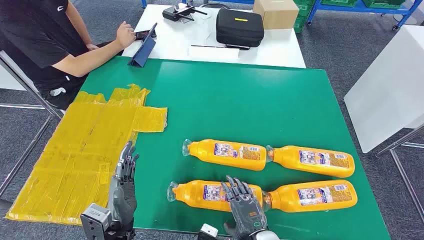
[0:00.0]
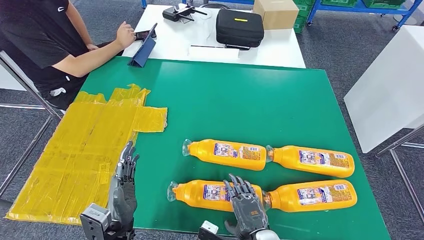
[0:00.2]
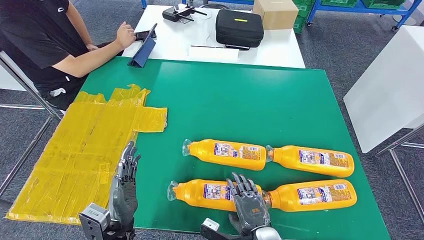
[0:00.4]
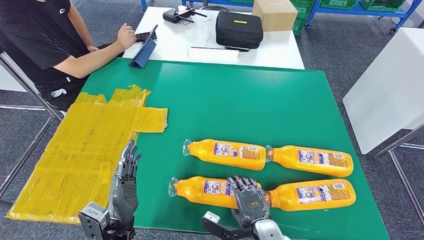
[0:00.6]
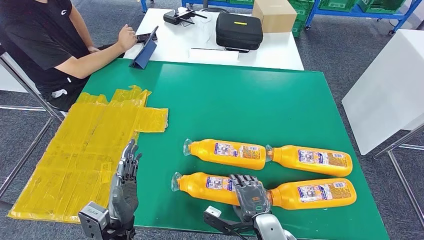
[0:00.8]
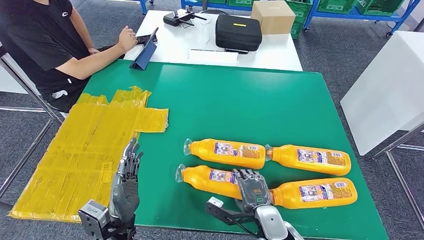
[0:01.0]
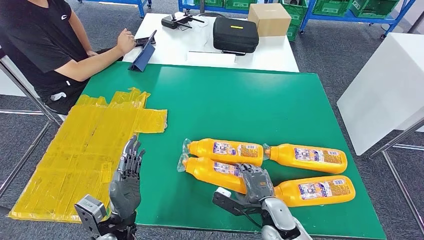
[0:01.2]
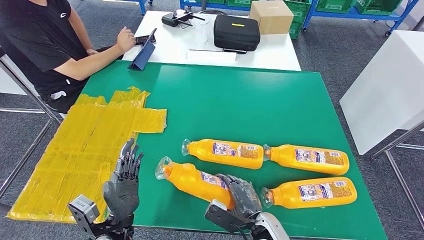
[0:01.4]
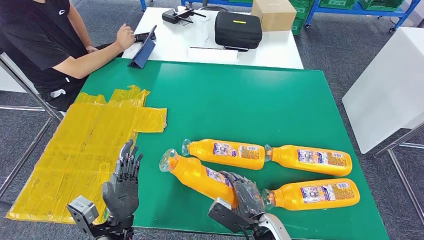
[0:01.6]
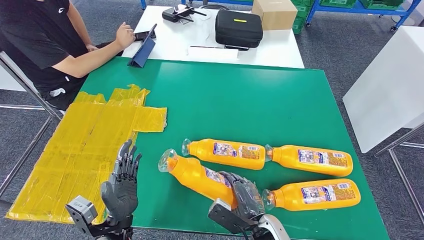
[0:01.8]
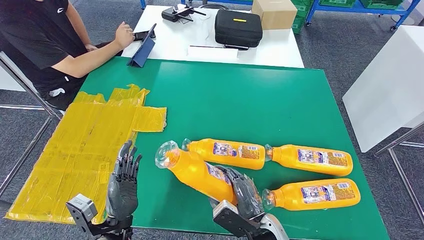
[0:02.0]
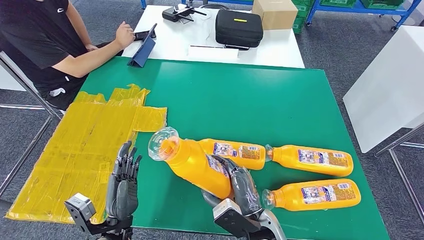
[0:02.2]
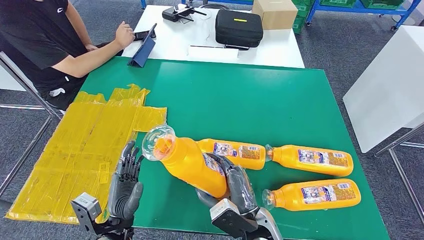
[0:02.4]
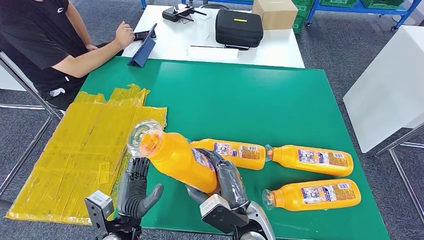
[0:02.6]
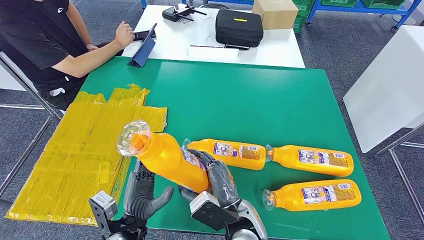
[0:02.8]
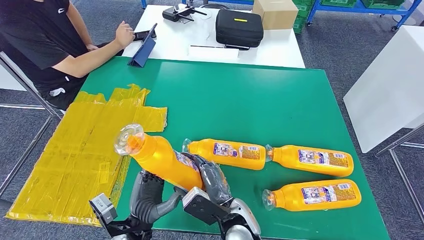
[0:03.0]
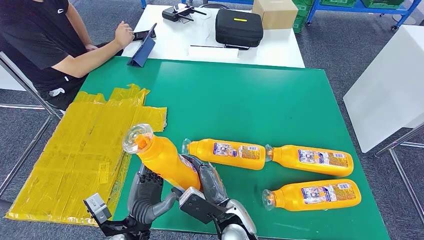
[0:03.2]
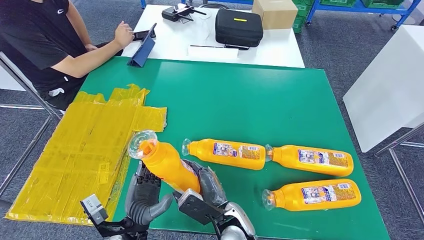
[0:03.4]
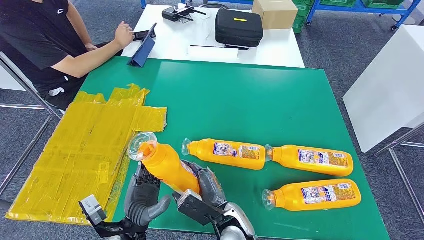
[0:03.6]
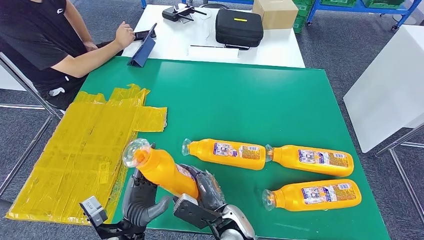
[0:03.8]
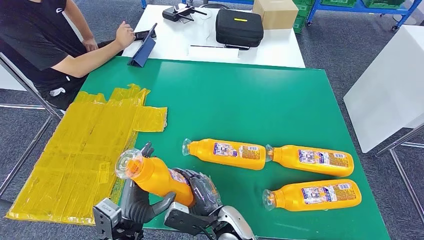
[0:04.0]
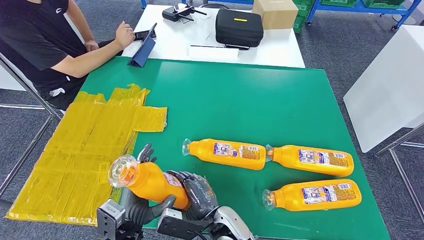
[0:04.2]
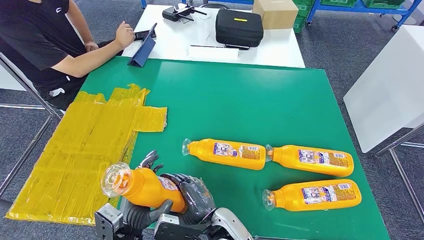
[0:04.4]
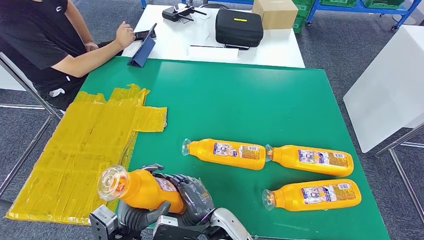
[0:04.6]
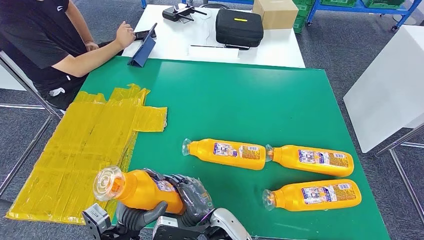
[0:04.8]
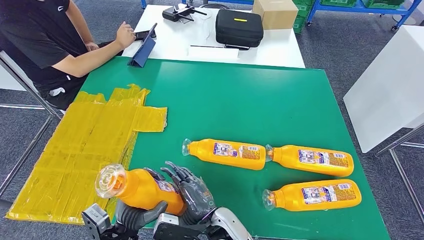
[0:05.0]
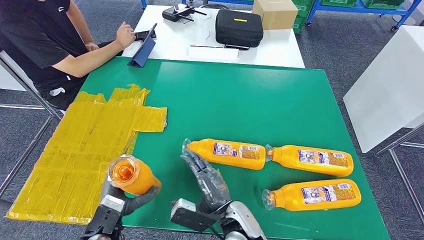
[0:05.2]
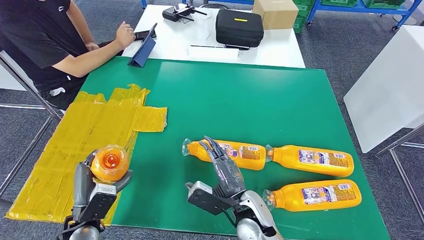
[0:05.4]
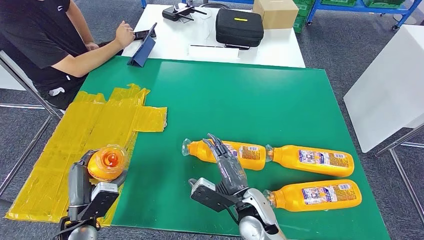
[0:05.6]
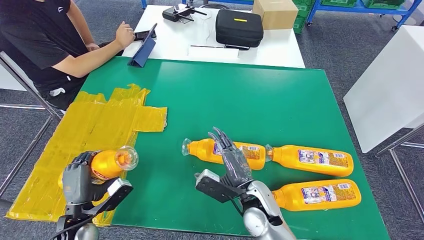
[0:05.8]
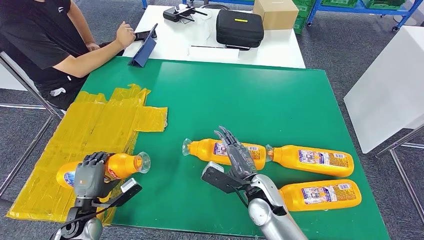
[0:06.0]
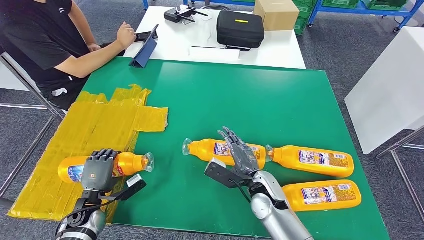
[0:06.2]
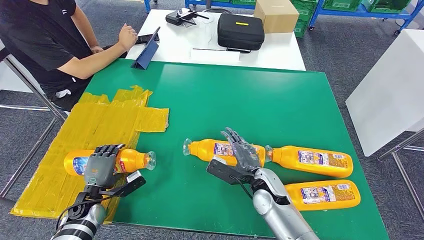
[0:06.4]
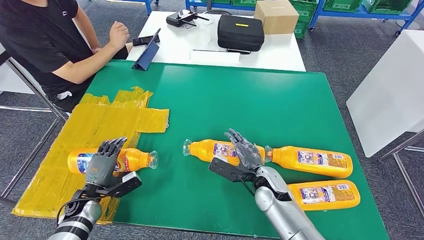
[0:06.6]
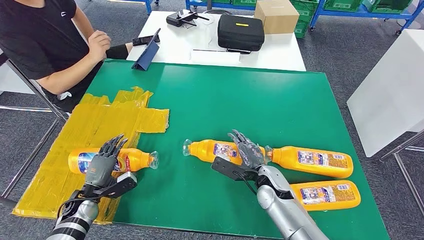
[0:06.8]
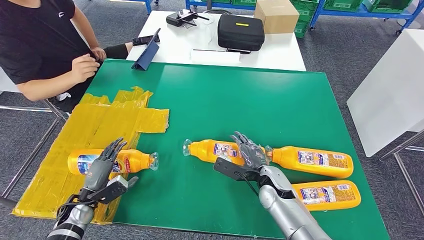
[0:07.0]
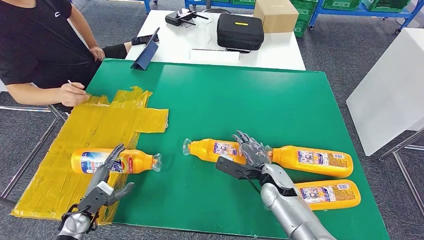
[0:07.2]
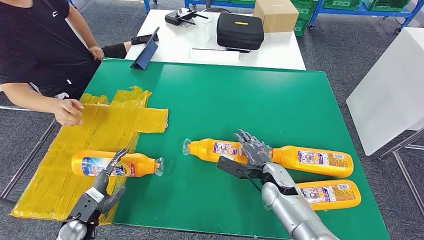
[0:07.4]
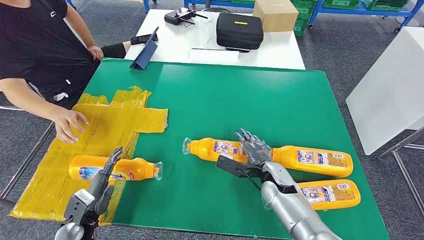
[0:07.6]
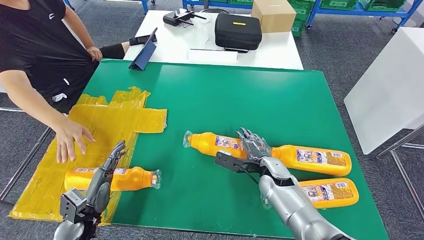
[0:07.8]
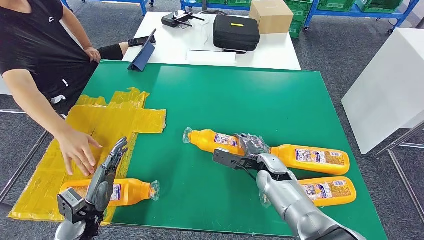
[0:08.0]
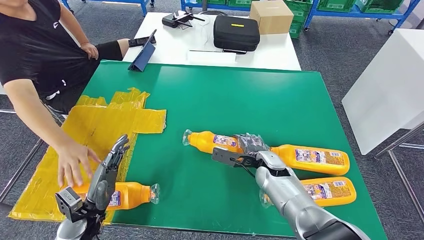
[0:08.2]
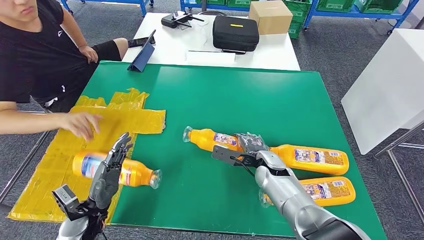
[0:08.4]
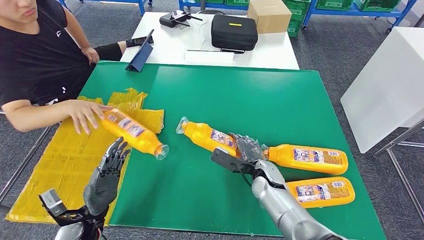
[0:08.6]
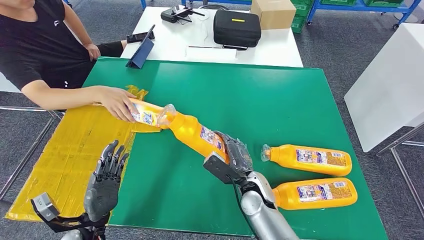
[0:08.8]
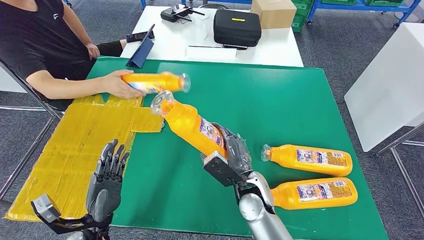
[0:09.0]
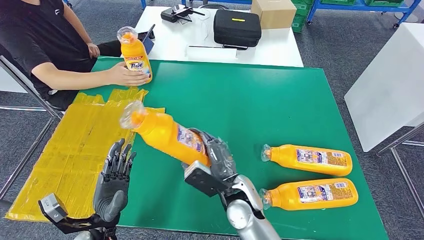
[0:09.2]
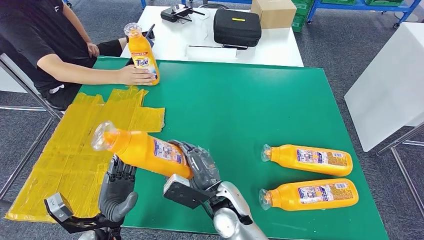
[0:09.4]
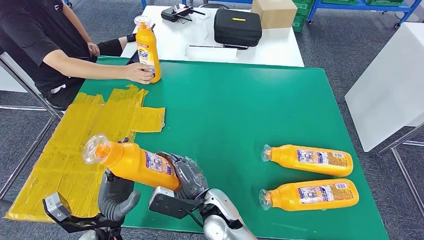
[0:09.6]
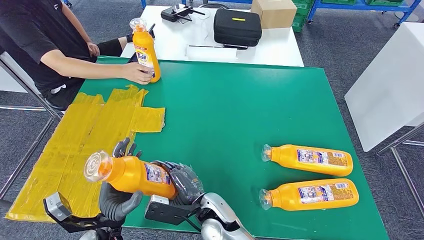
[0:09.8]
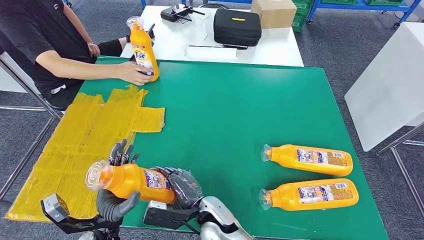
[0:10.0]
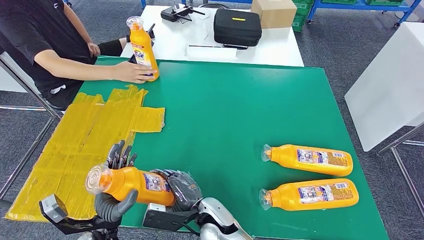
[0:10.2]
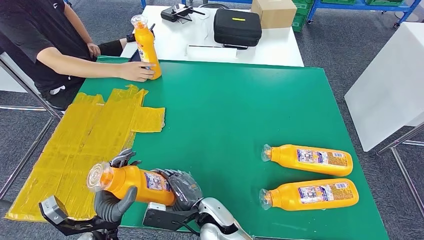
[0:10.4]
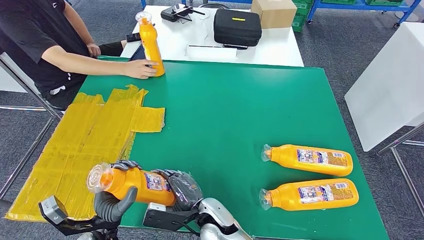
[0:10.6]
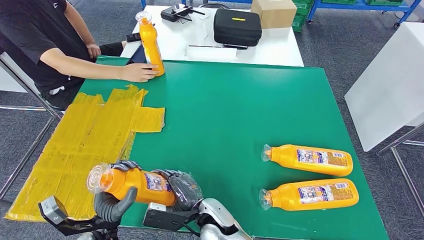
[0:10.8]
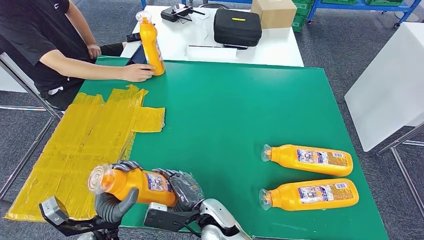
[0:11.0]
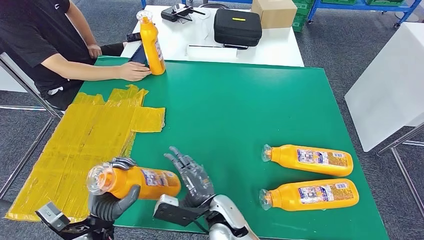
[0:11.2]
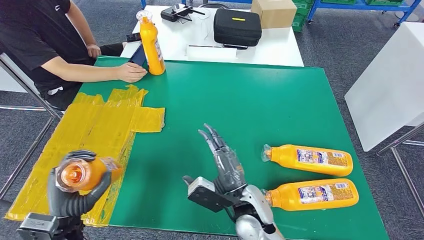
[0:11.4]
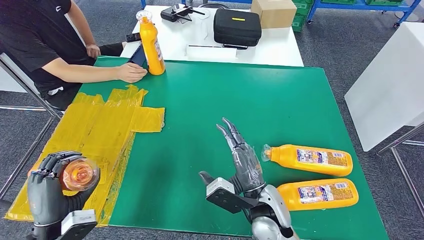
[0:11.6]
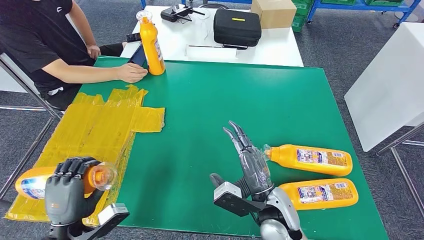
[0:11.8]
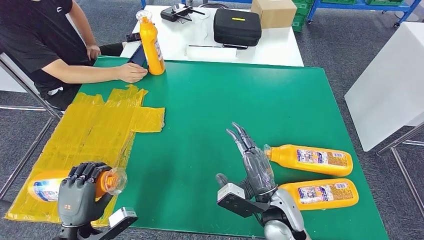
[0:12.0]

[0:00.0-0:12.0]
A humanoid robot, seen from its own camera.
Step, 0:00.0 to 0:03.6: Take the bottle from the table.
Step, 0:03.8 to 0:07.8: Flip the bottle to face forward.
Step, 0:08.0 to 0:11.4: Pick up the bottle from the table.
0:01.6 to 0:03.0: The right hand heads to the left and upward, covering roughly 10 cm.
0:04.4 to 0:06.0: The right hand goes some 15 cm to the right and forward. Meanwhile the left hand shifts some 15 cm to the left and forward.
0:10.4 to 0:12.0: The right hand moves to the right, about 15 cm, while the left hand heads to the left, covering some 5 cm.

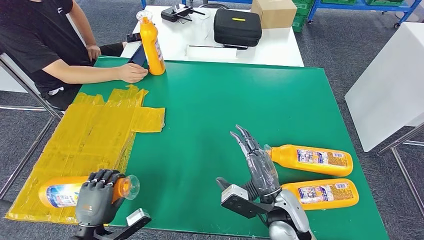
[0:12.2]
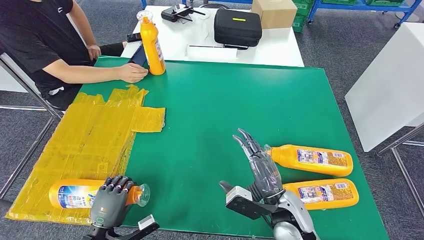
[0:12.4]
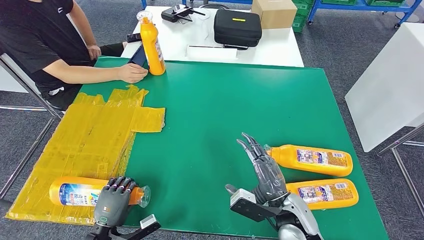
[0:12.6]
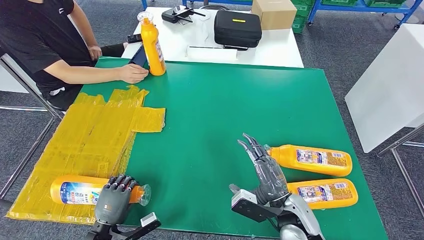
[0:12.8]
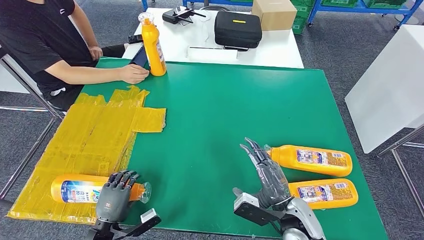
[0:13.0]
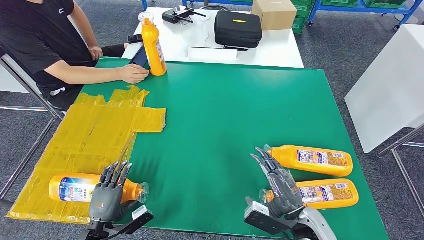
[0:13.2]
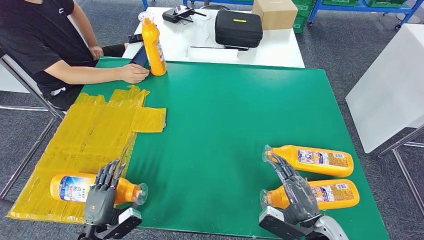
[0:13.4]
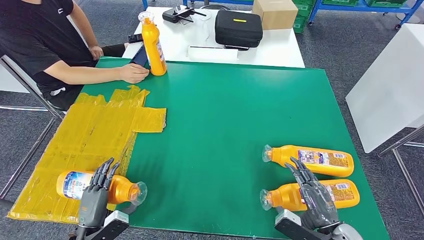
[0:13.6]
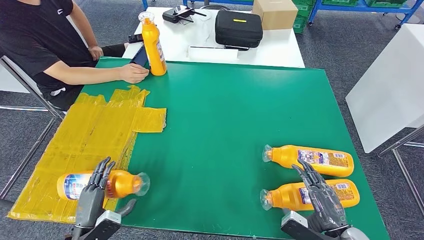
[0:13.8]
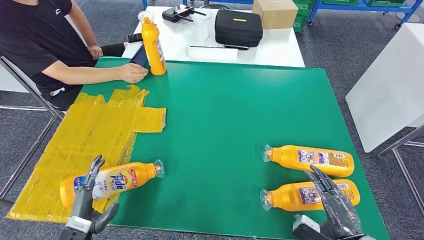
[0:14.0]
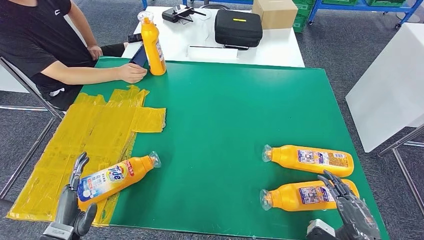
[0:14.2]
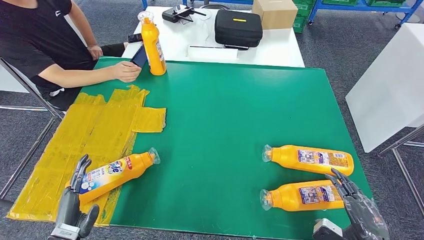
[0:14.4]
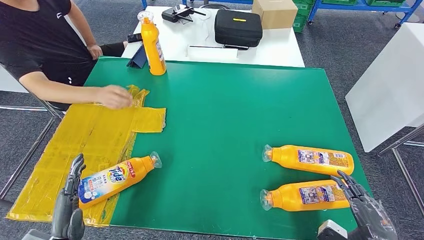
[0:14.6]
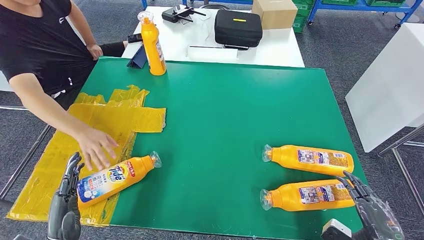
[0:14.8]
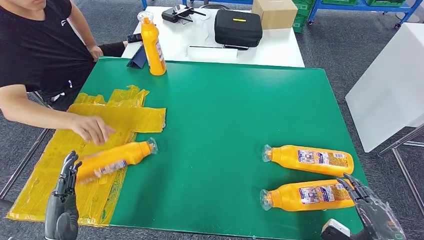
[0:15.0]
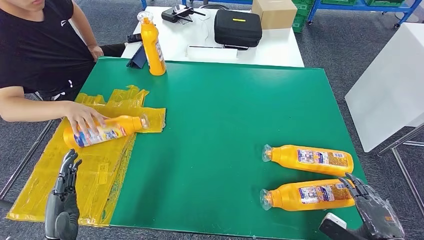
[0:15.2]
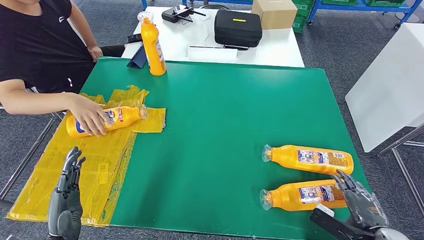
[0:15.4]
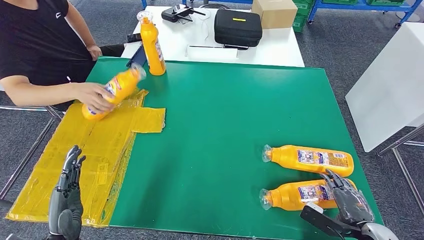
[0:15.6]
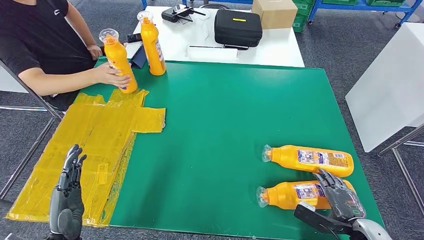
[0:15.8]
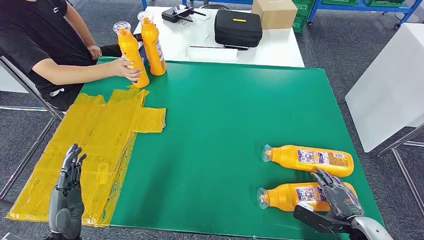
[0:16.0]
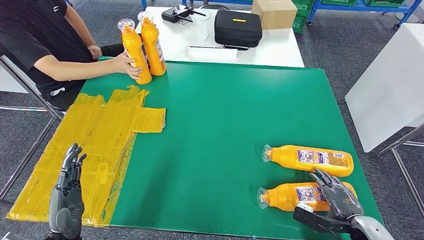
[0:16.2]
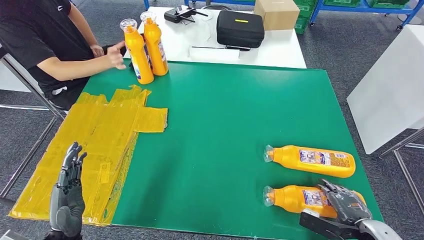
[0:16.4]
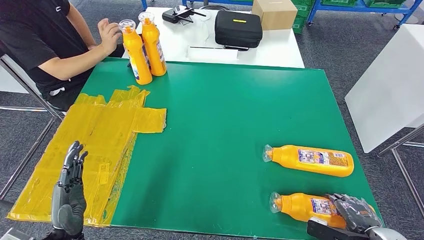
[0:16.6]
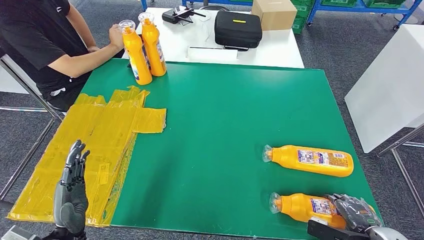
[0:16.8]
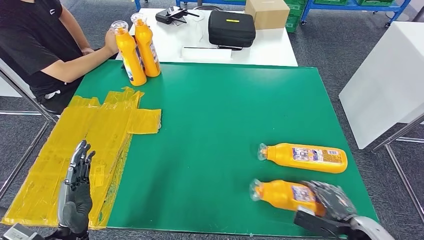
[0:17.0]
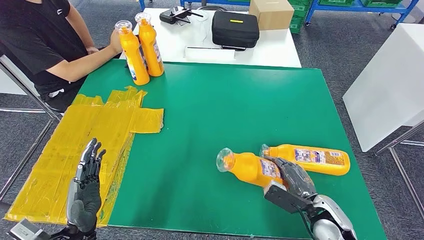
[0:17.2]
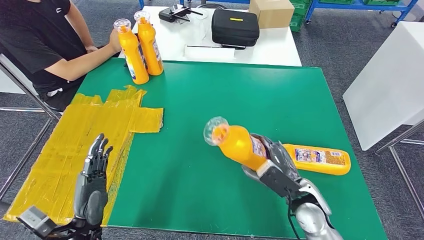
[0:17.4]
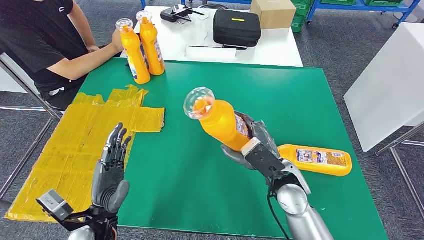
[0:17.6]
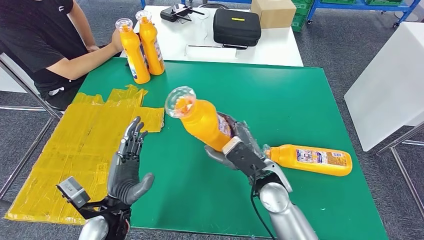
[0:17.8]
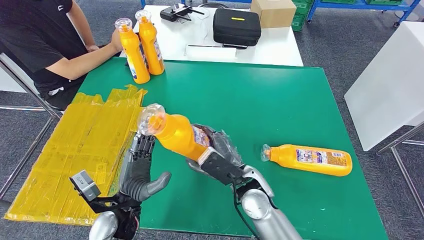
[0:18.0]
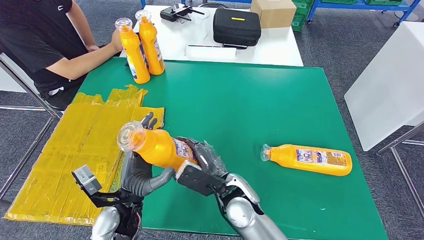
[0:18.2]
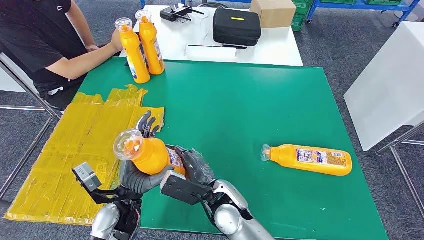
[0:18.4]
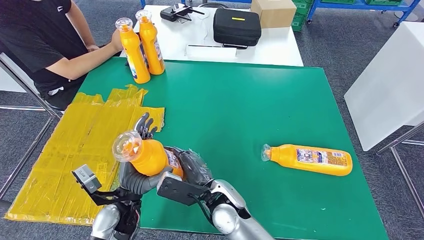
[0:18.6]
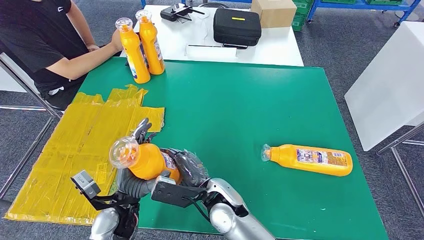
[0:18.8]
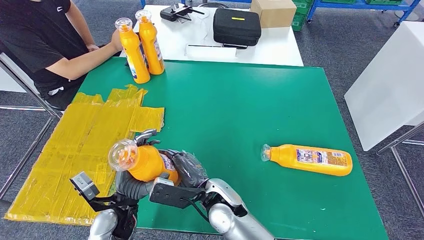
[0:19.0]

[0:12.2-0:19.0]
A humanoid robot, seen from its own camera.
Step, 0:12.2 to 0:14.6: Flip the bottle to face forward.
0:12.2 to 0:13.6: The right hand goes about 15 cm to the right and backward.
0:13.6 to 0:15.0: The right hand shifts approximately 10 cm to the right; the left hand moves upward, about 10 cm.
0:15.0 to 0:16.2: The right hand travels downward and forward by about 10 cm.
